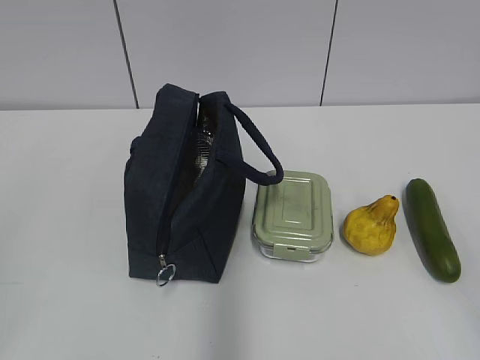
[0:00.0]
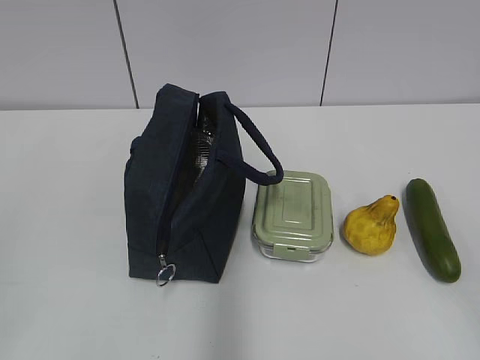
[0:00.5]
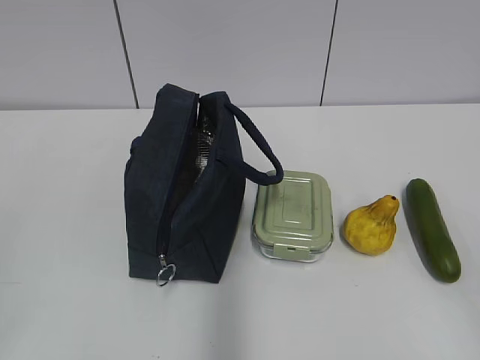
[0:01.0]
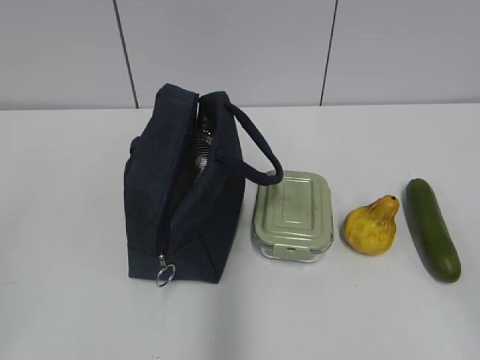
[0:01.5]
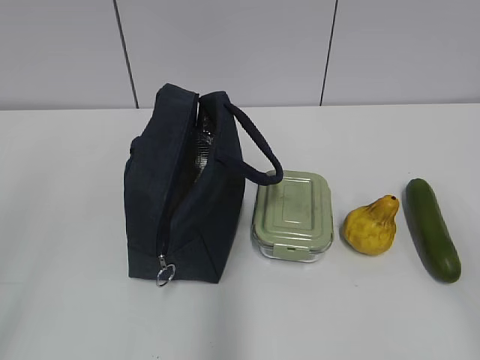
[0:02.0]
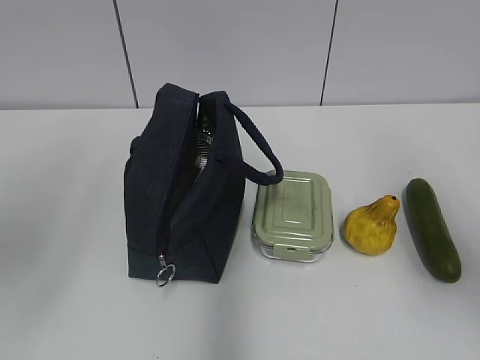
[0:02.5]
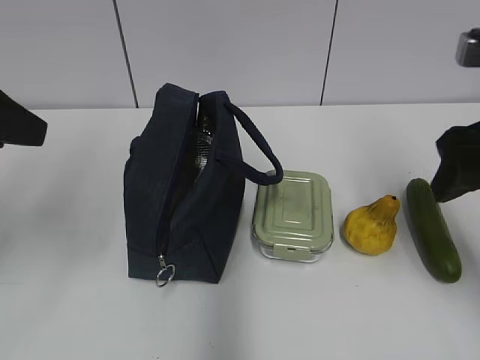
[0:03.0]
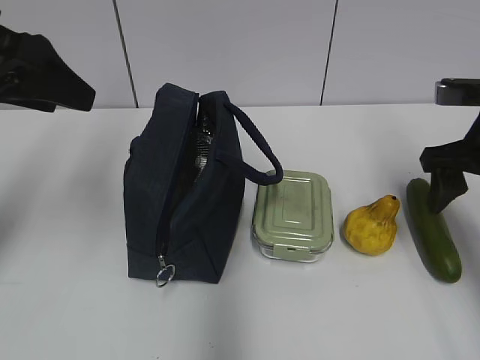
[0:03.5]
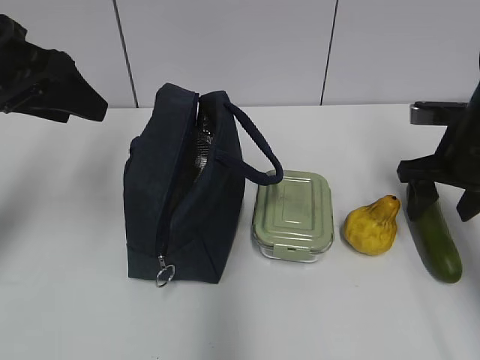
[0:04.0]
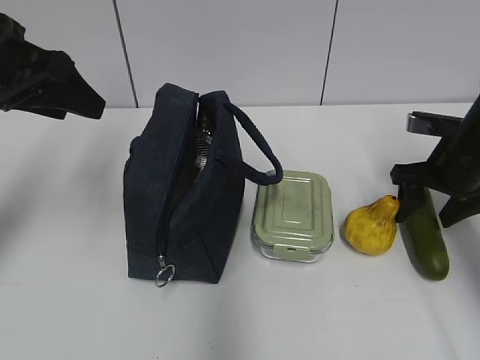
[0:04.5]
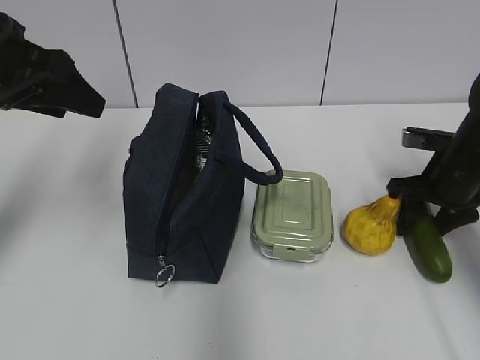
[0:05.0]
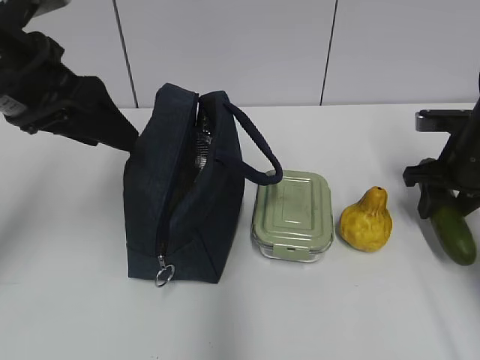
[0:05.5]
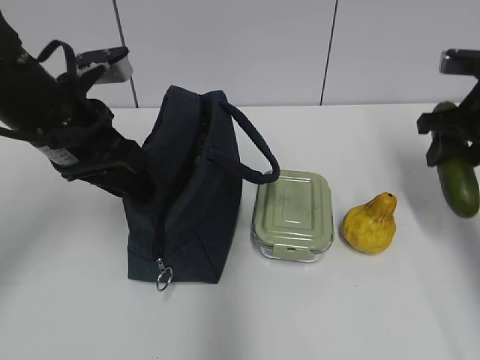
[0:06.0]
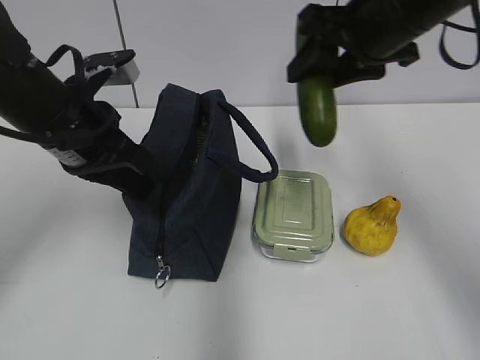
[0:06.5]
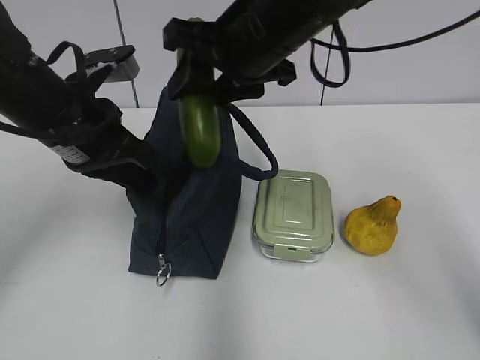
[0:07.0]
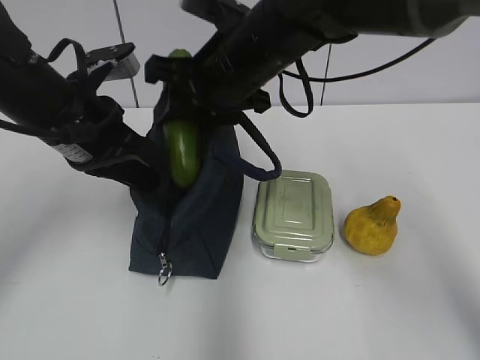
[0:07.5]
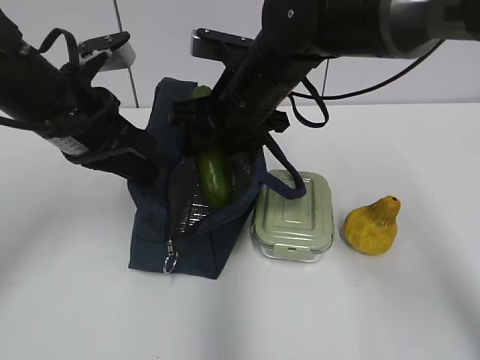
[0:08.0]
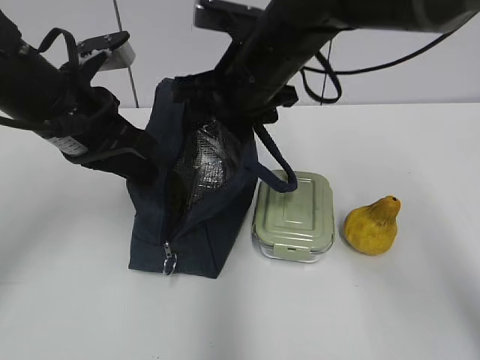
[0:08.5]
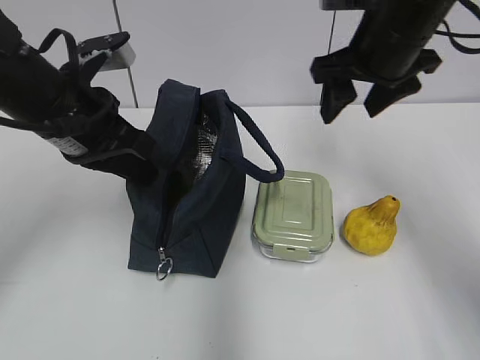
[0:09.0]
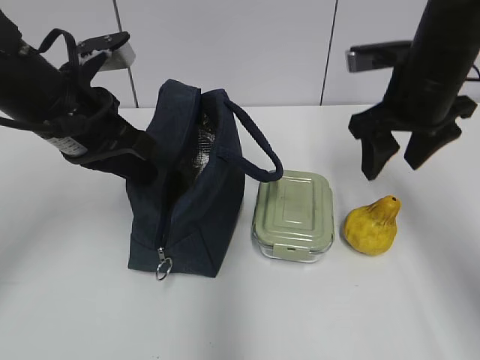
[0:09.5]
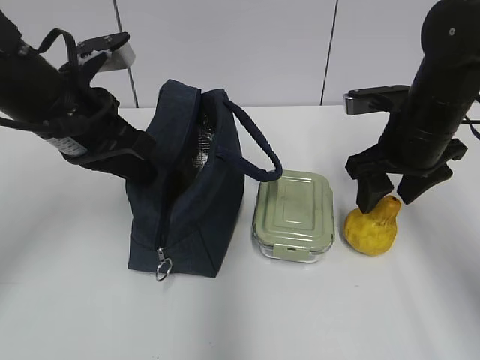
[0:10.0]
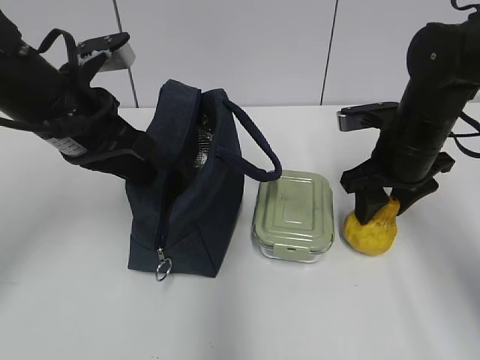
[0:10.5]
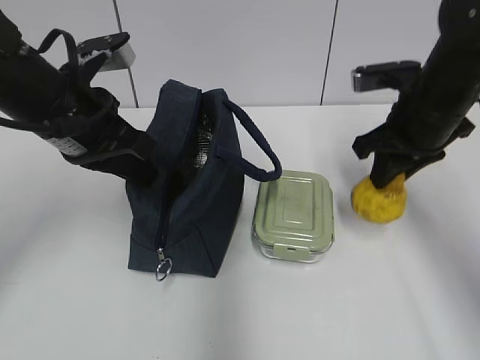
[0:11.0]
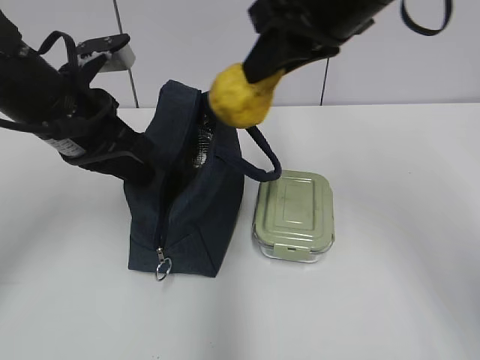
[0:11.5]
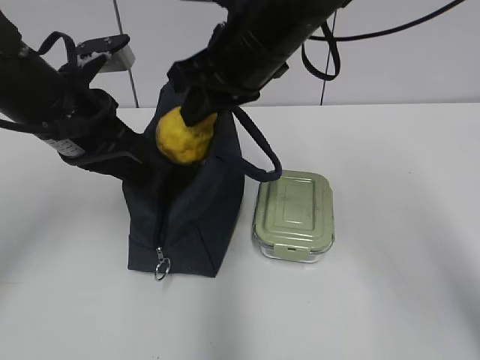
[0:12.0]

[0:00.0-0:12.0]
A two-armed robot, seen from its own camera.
Step, 0:00.0 to 0:05.0: Grab the cucumber with your right hand.
Step, 0:06.0 to 0:08.0: Place it into the bag with your right hand.
Step, 0:08.5 to 0:10.5: Grab the pear with your right hand.
0:02.0 to 0:04.0: The grippers both shift forward by some 30 cm. The left gripper opens its fingers.
0:04.0 to 0:06.0: The left gripper is displaced downward and to the right by roughly 10 cm, while the right gripper moves about 5 cm.
0:06.0 to 0:08.0: The right gripper heads to the left, covering about 25 cm. The left gripper closes its fingers.
0:08.0 to 0:10.0: The right gripper shifts approximately 20 cm to the right.
0:10.0 to 0:12.0: The right gripper is displaced to the left and upward by about 20 cm, and closes its fingers.

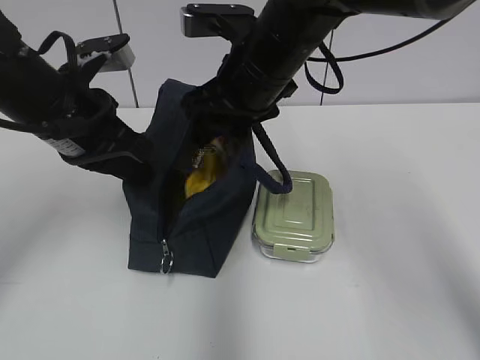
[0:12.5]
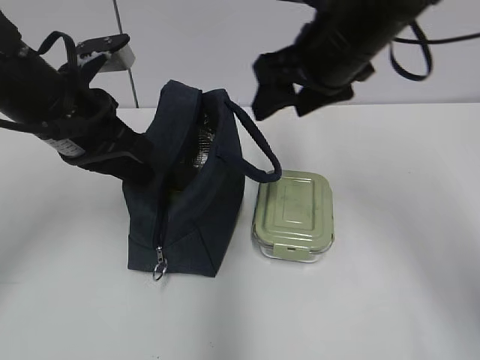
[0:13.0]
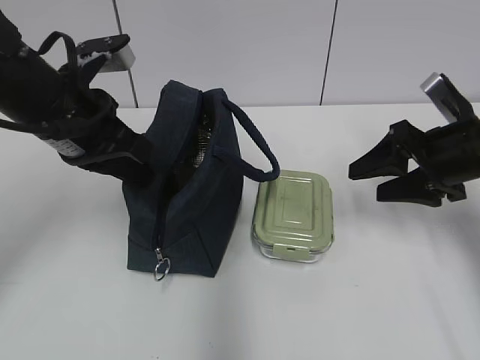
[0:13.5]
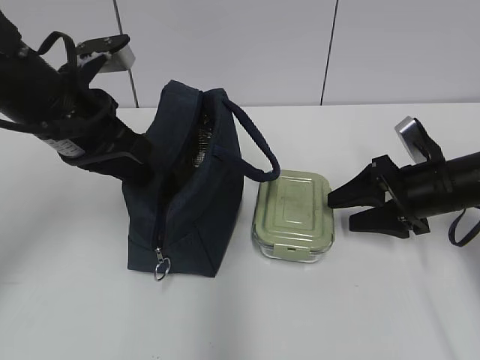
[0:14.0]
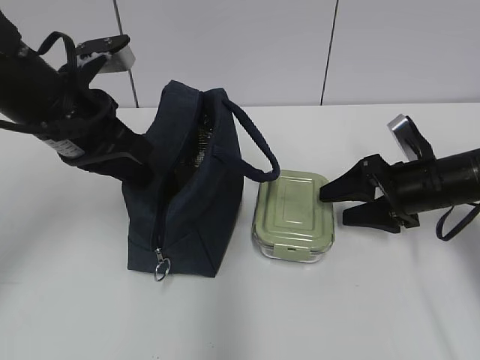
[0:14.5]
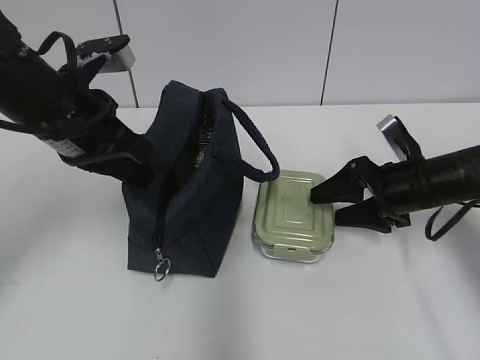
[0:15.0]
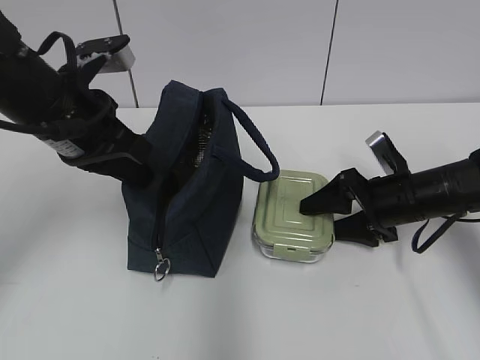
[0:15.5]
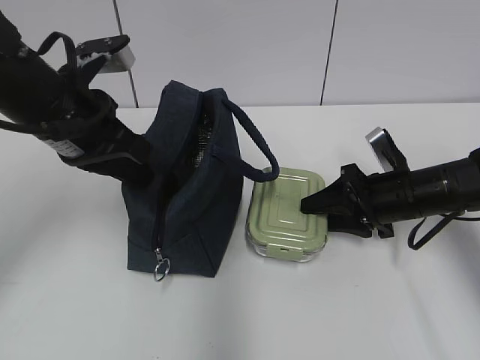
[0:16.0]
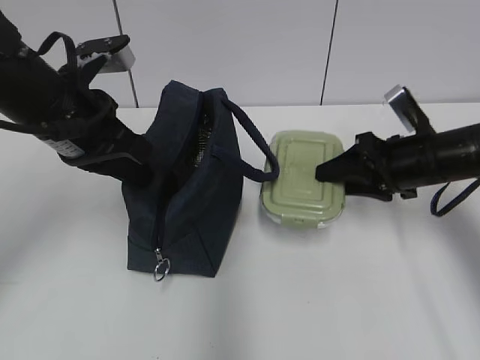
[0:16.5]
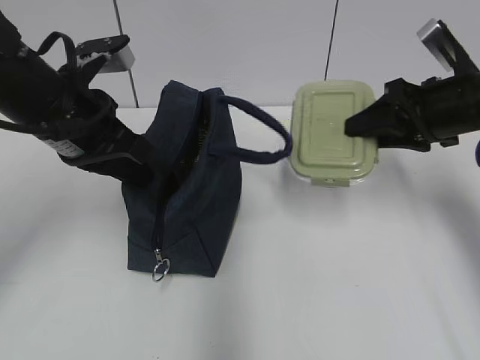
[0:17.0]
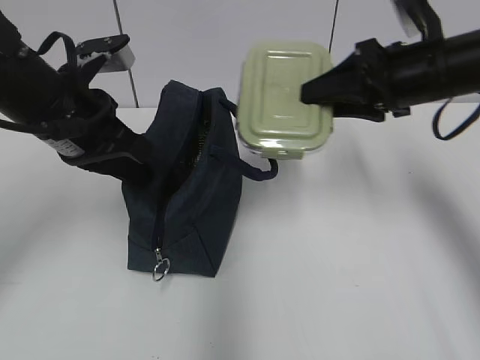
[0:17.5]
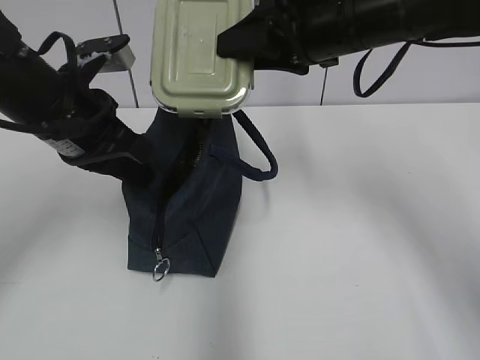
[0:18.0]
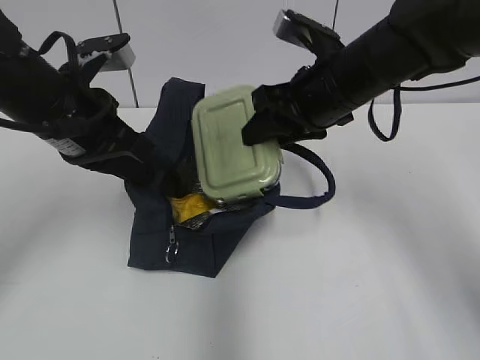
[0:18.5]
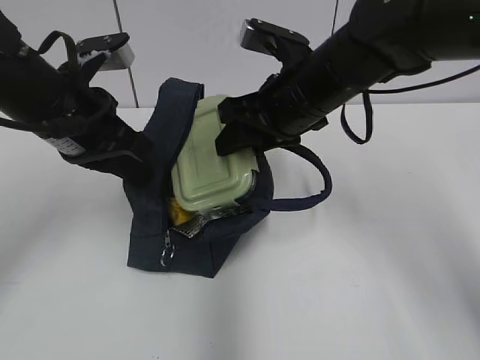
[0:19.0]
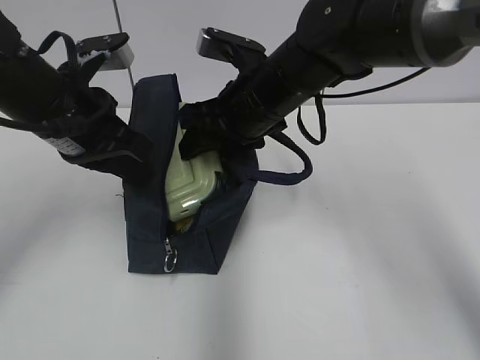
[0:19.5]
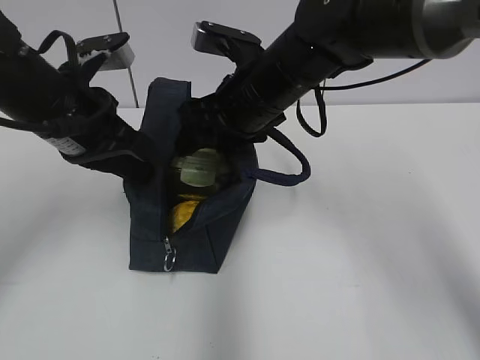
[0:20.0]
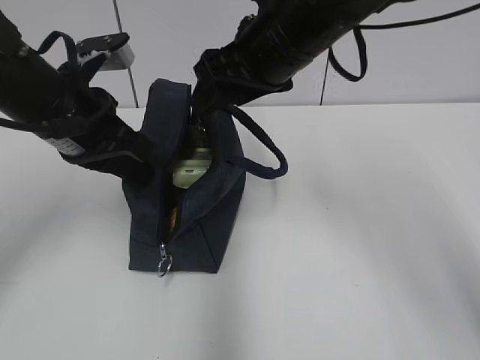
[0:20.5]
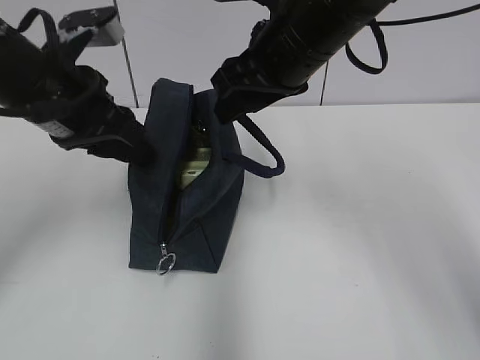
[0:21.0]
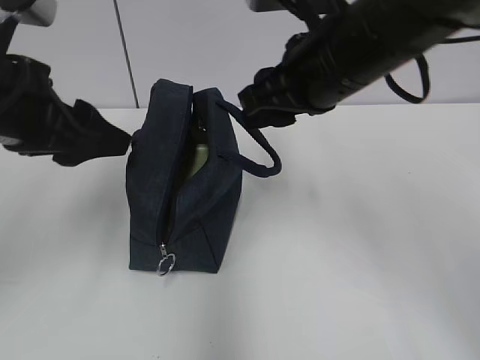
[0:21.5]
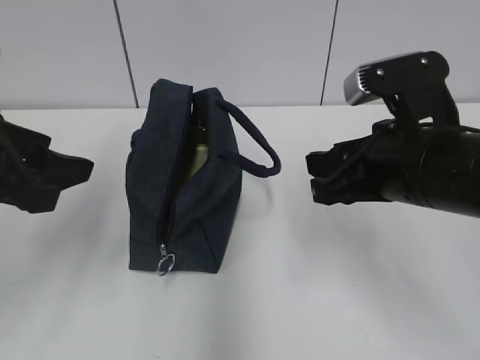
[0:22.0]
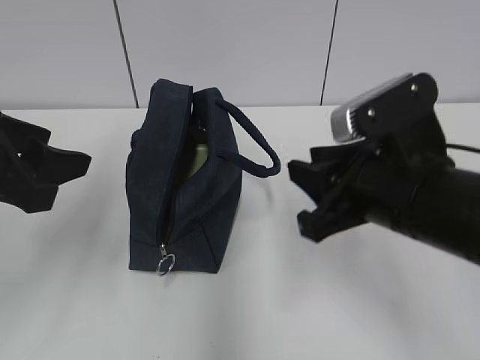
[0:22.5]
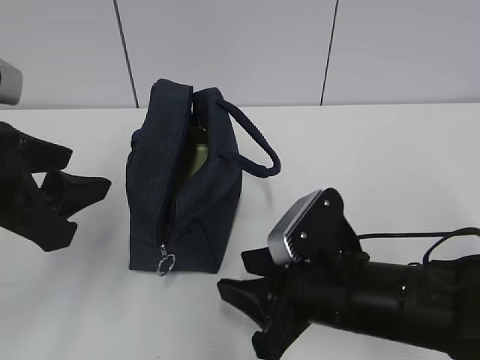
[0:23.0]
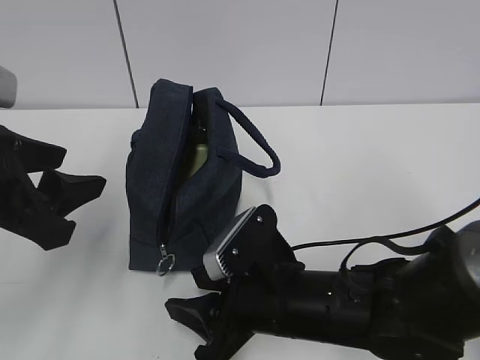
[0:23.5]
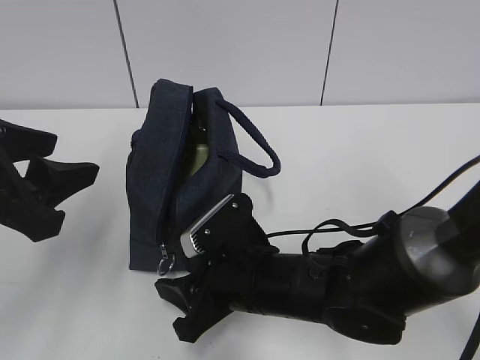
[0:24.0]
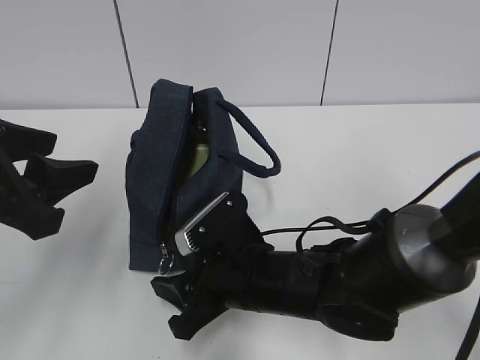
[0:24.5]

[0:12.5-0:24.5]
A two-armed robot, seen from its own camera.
Step, 0:13.0 to 0:16.0: Grab the lunch box with your right hand.
0:12.5 to 0:14.5: The right gripper is displaced to the right and downward by some 25 cm.
0:14.5 to 0:16.5: The right gripper closes up.
0:16.5 to 0:18.5: The right gripper goes some 15 cm to the left and upward.
0:18.5 to 0:20.5: The right gripper shifts about 10 cm upward and to the left.
0:20.5 to 0:22.5: The left gripper is displaced backward and to the left by about 10 cm, and opens. Meanwhile the right gripper moves backward, downward and to the right, approximately 15 cm, and closes up.
0:22.5 to 0:24.5: The right gripper travels downward and to the left by about 15 cm.

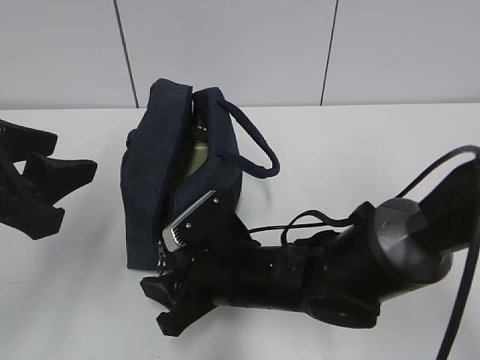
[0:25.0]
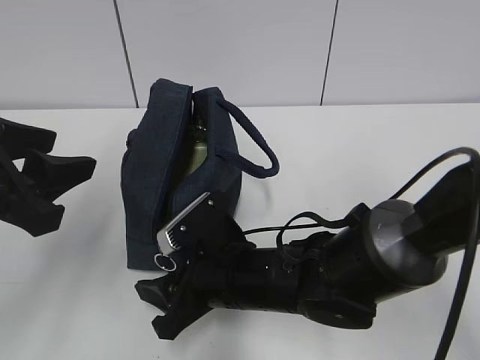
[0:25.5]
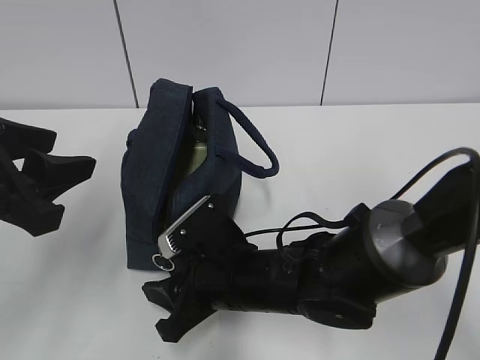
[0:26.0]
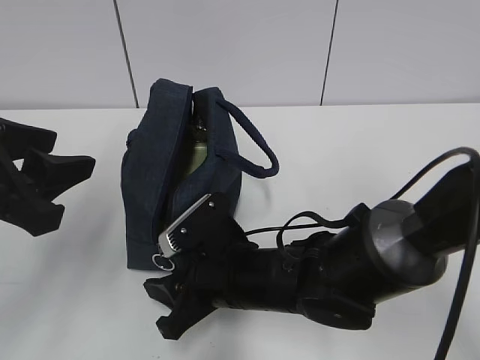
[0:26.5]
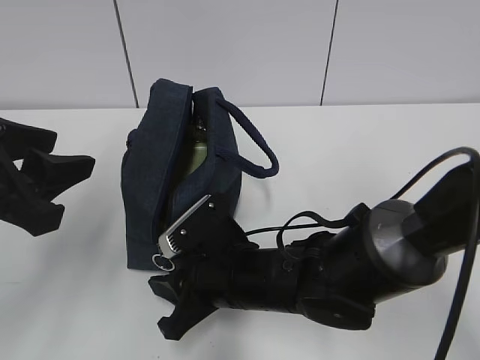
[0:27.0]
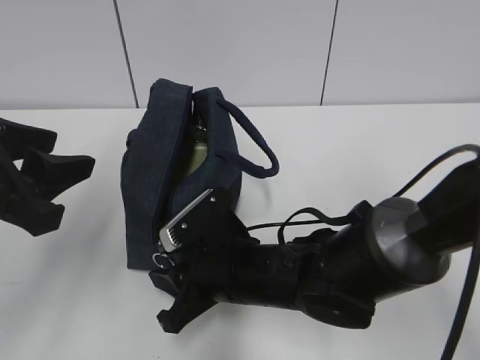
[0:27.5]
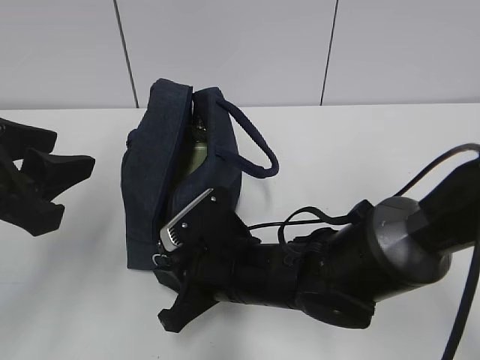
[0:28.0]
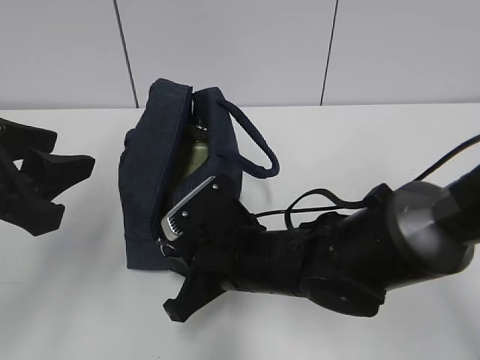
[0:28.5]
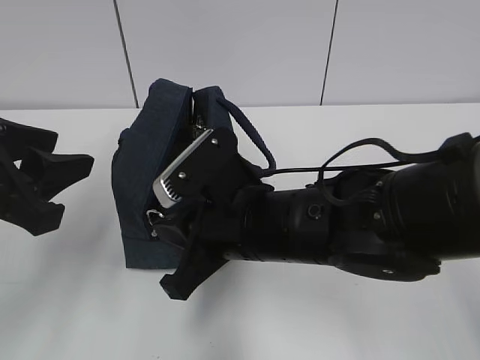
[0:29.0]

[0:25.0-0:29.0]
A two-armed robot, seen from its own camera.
0:25.0 to 0:27.0: Neither gripper changes place.
0:27.0 to 0:29.0: The right gripper shifts some 10 cm upward, and closes.
